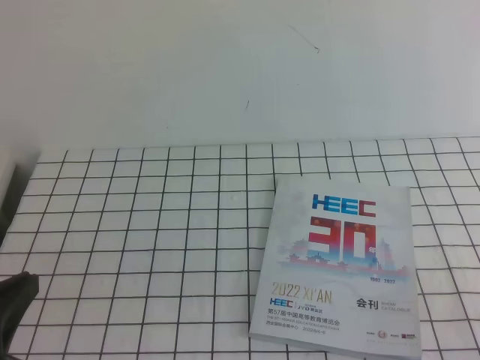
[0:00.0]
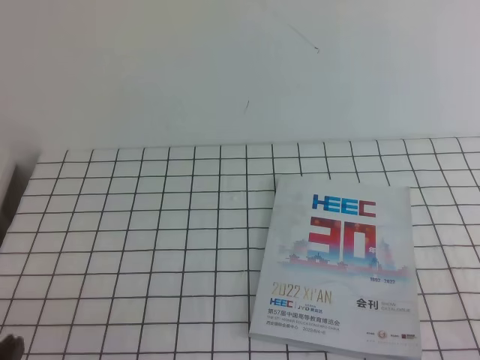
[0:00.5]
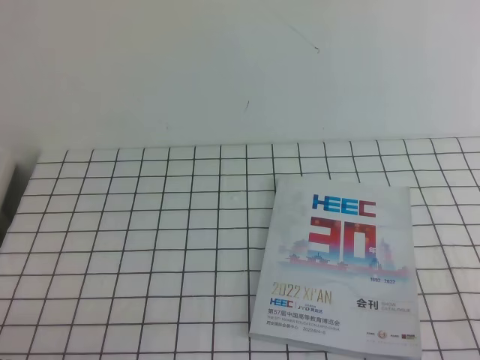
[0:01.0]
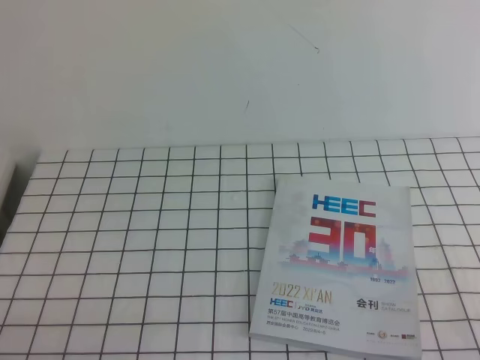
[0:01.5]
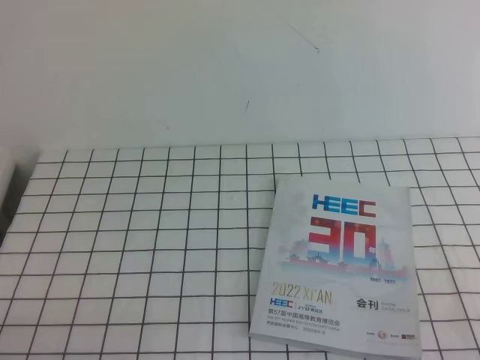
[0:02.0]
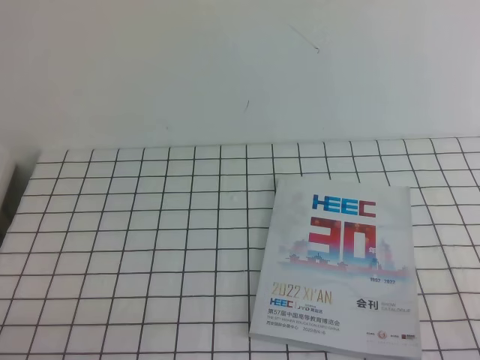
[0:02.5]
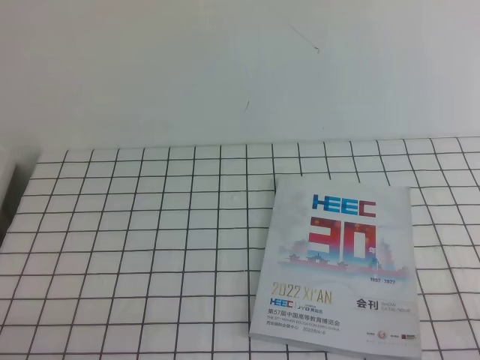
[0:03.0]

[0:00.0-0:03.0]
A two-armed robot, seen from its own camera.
Task of the whole recording: on the white tablecloth, hold the book with one hand and close it with the other.
Step, 0:00.0 to 0:03.0: Close the open book.
0:00.0 to 0:01.5: The left gripper shifts approximately 10 cm downward.
